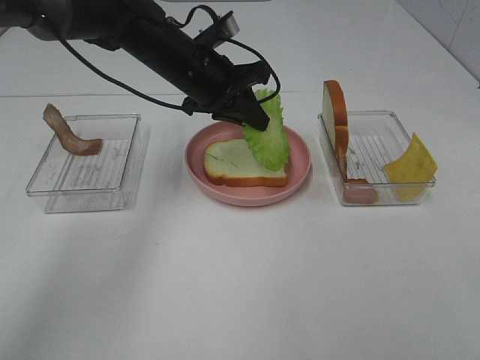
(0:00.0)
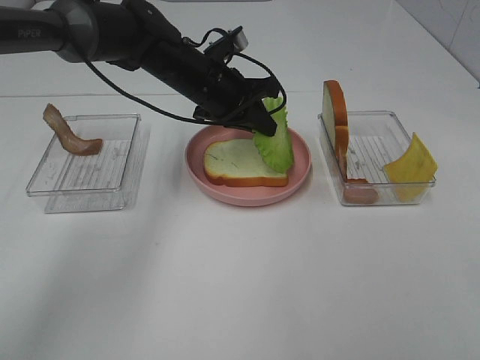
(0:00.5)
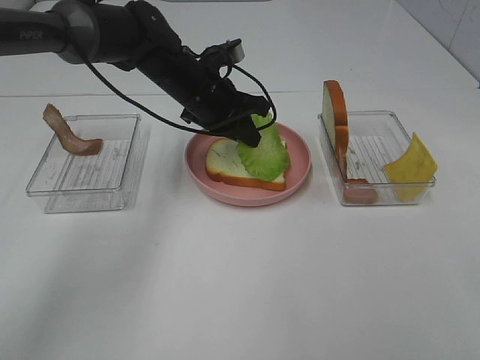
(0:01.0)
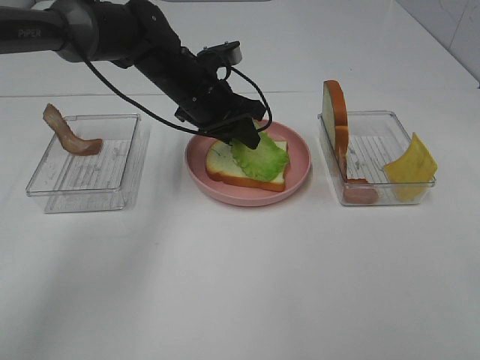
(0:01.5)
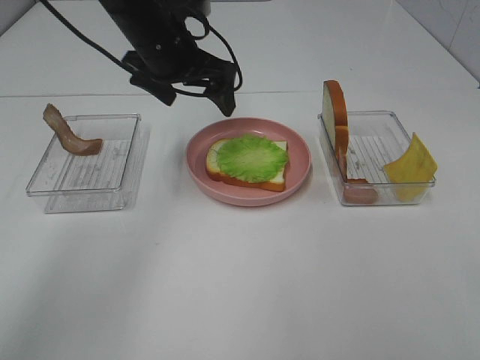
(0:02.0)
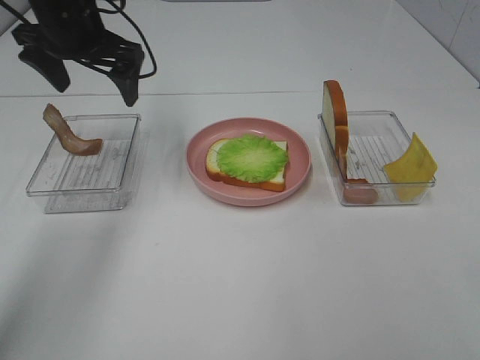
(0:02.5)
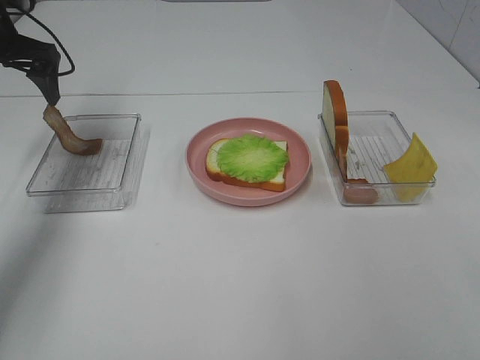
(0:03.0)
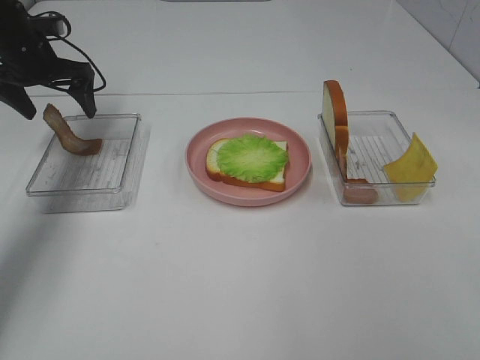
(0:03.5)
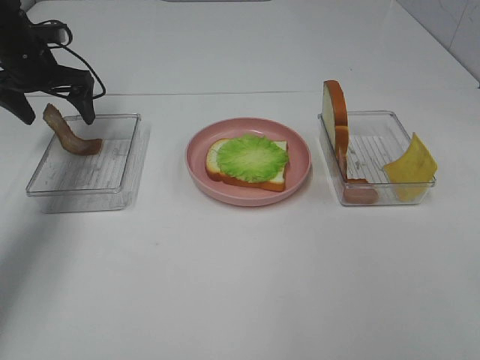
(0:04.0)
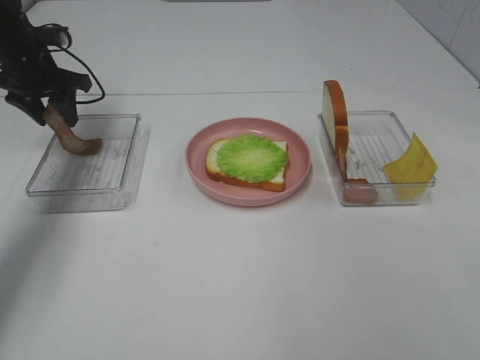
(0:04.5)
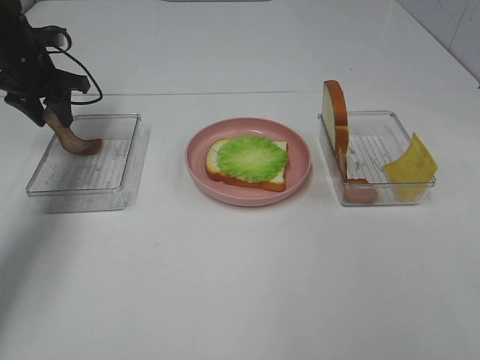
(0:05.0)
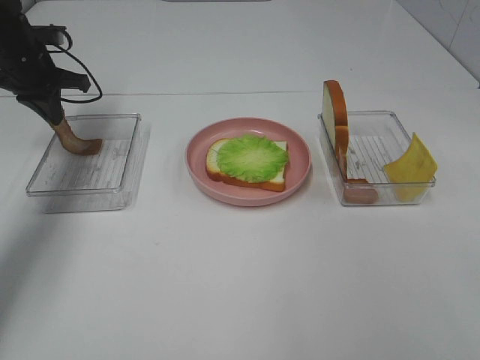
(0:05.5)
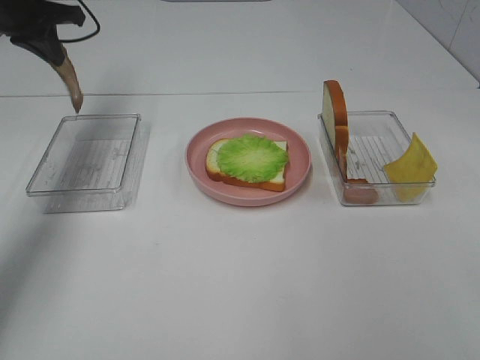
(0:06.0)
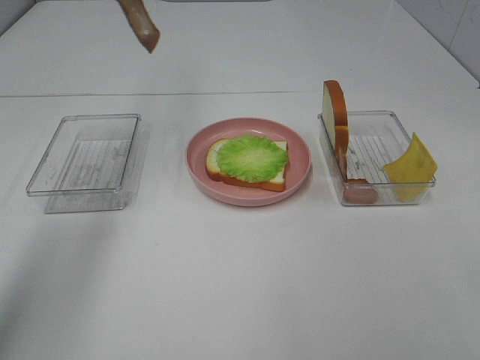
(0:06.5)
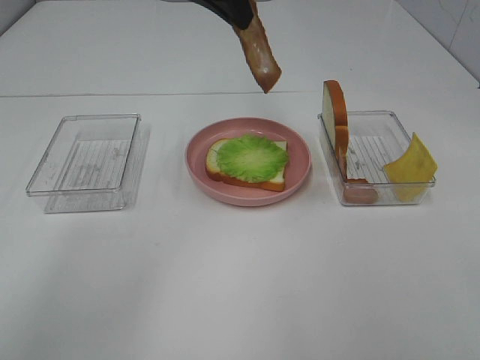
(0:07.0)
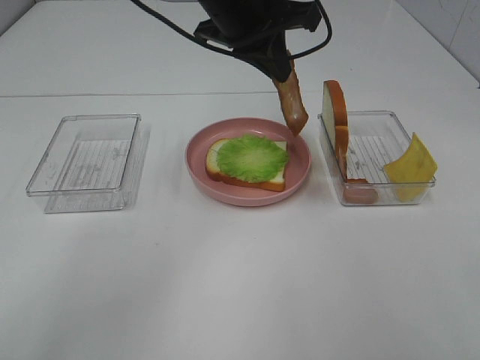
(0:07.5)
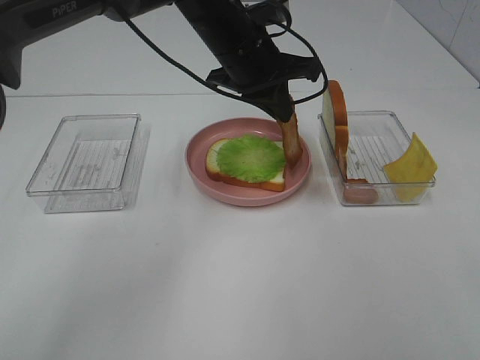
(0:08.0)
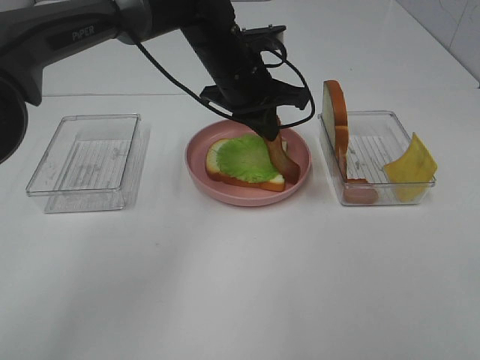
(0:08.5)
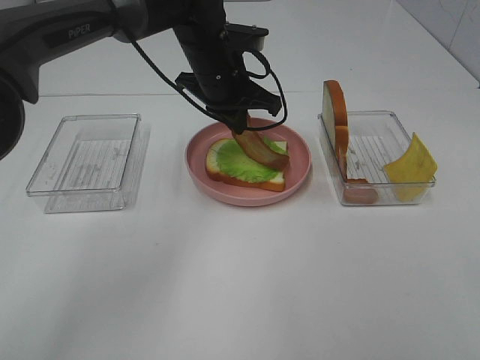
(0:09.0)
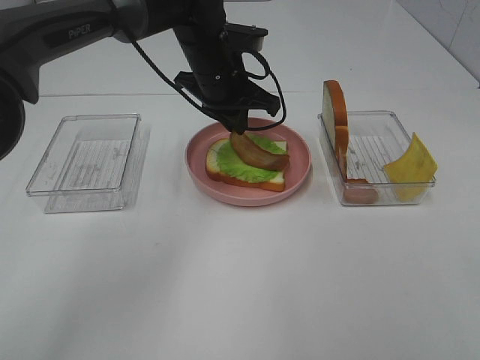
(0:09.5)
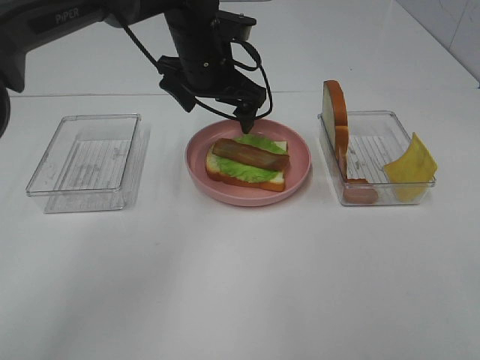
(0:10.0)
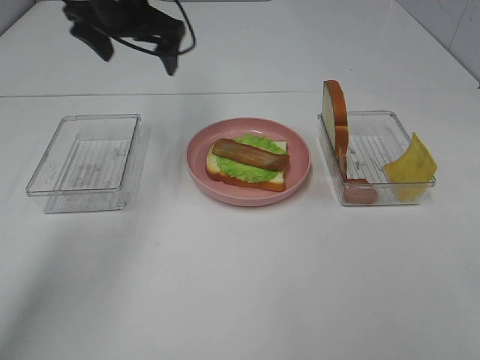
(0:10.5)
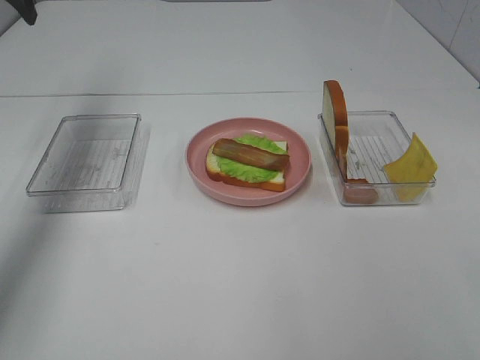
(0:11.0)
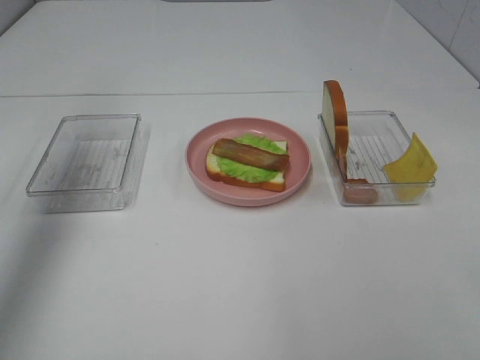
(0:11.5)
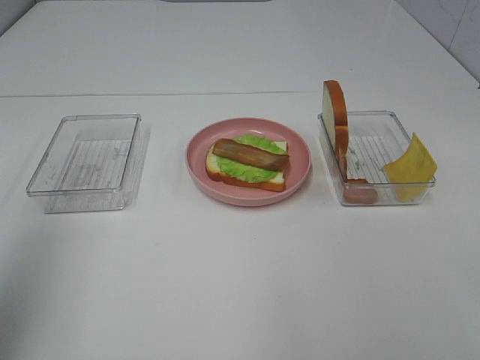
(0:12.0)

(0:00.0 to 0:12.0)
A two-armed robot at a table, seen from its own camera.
Task of the whole recording: Make sandwiches.
Step, 0:02.0 - 0:05.5: Left hand:grab the bacon.
Step, 0:06.0 - 0:09.5: Left hand:place bacon on lettuce slice.
0:00.0 - 0:02.0: The left gripper ends up roughly 5 cm from where it was, and opens up.
0:02.0 - 0:04.0: The left gripper is displaced to the left by approximately 20 cm.
0:04.0 - 0:06.0: The left gripper is displaced upward by roughly 10 cm, and closes.
0:06.0 - 0:08.0: The left gripper goes some 30 cm to the right.
0:08.0 - 0:10.0: The left gripper opens.
0:10.0 - 0:12.0: The left gripper moves backward, to the left and upward, approximately 50 cm.

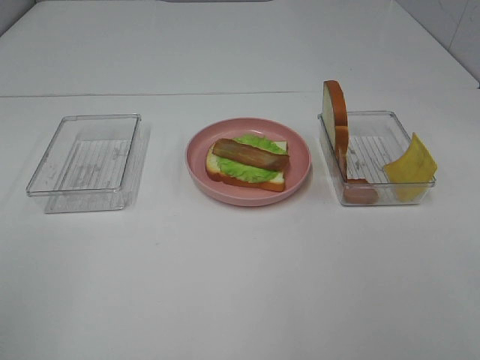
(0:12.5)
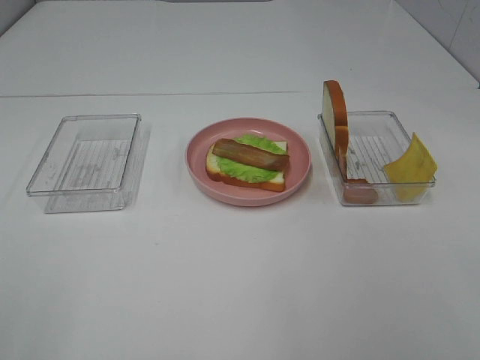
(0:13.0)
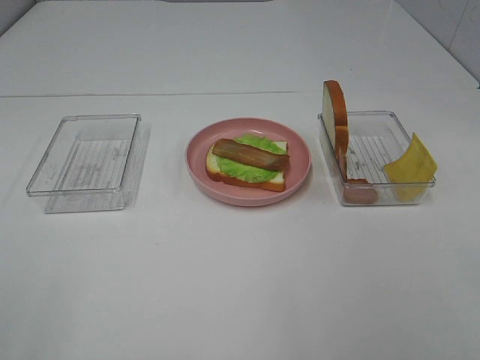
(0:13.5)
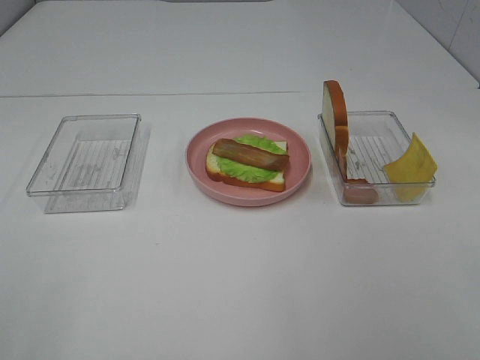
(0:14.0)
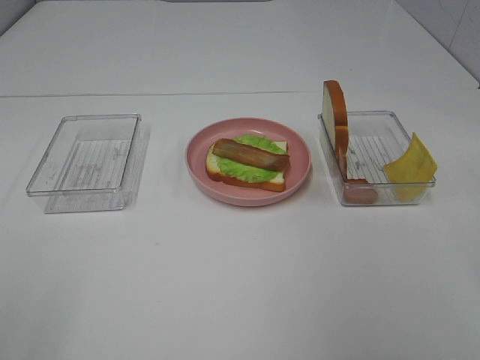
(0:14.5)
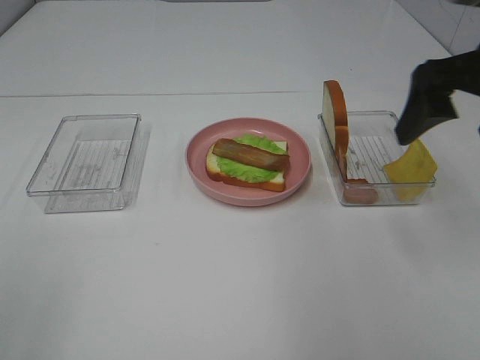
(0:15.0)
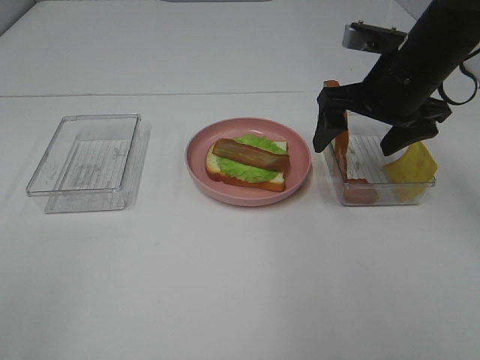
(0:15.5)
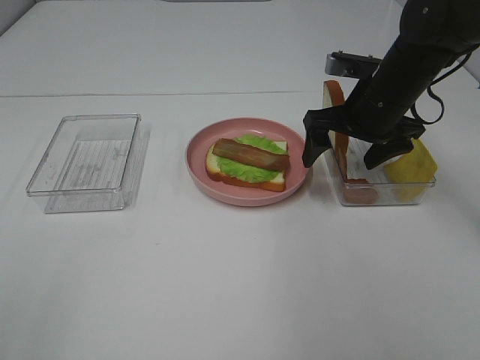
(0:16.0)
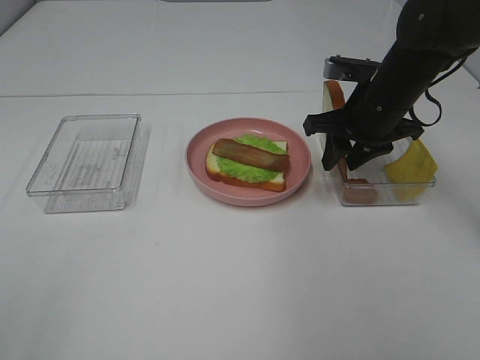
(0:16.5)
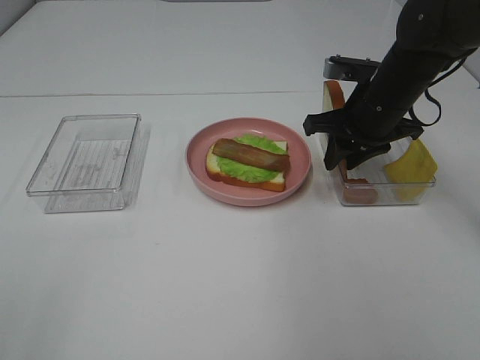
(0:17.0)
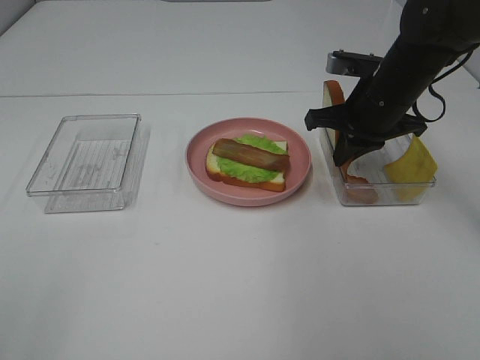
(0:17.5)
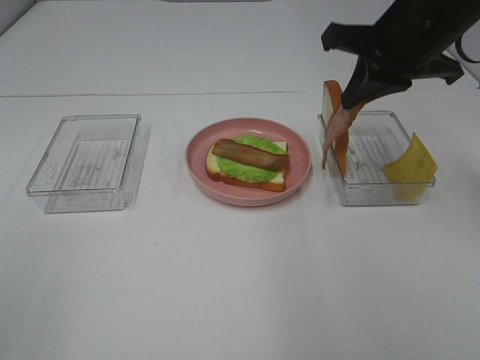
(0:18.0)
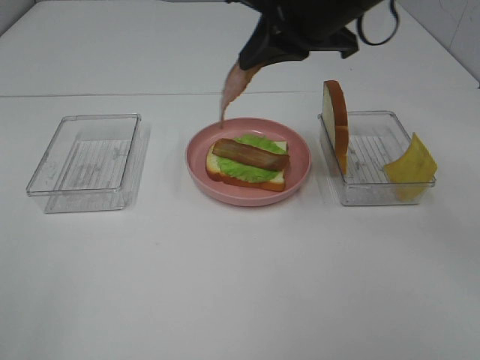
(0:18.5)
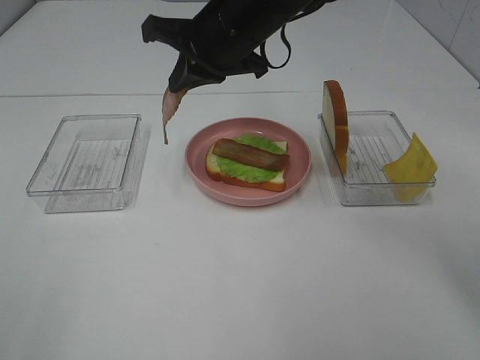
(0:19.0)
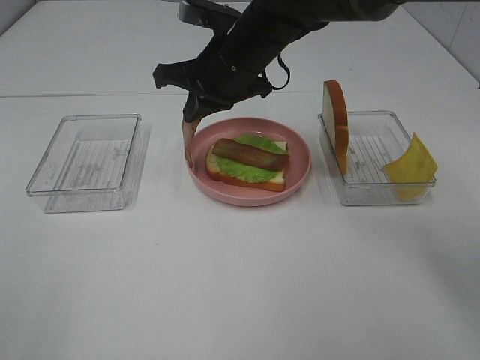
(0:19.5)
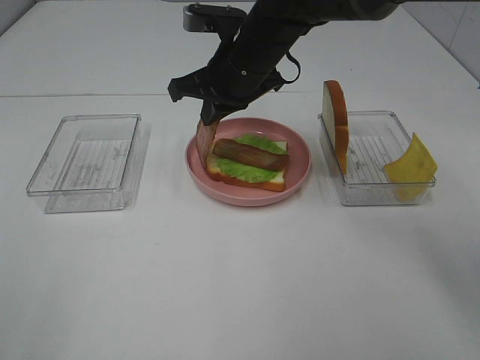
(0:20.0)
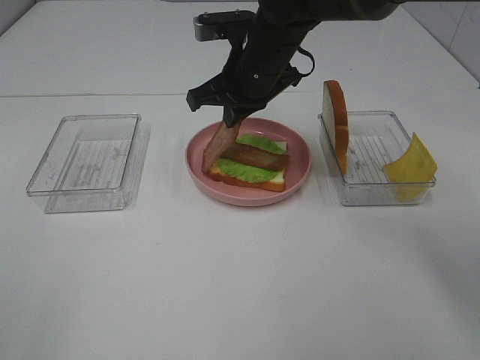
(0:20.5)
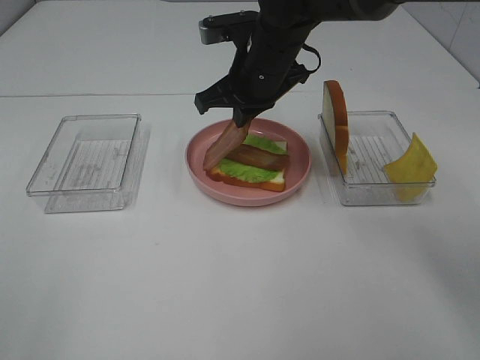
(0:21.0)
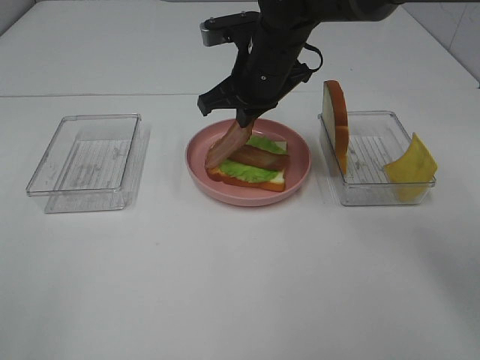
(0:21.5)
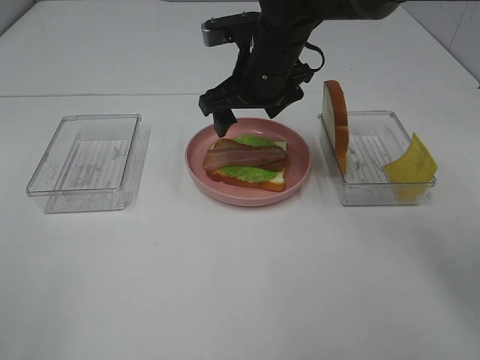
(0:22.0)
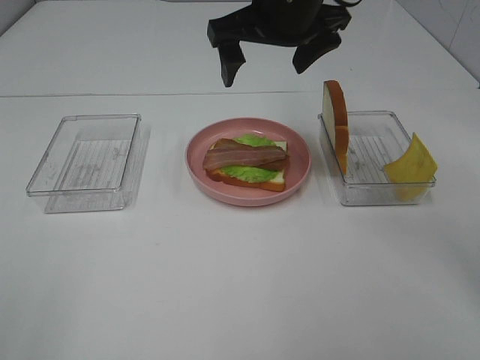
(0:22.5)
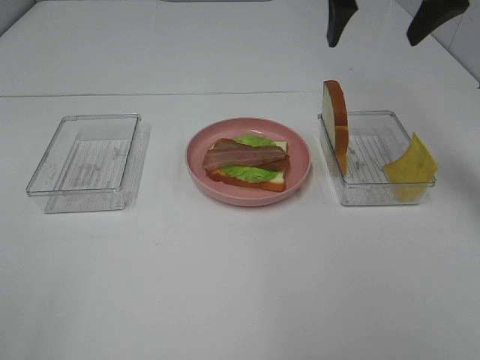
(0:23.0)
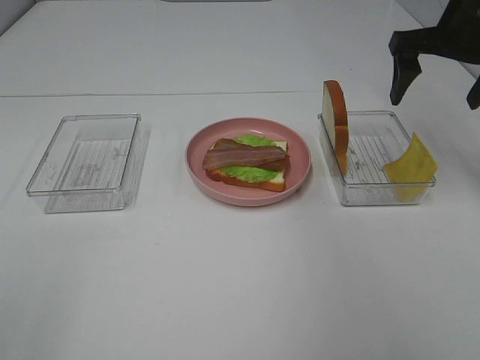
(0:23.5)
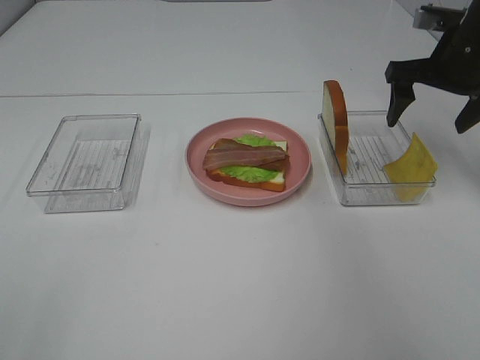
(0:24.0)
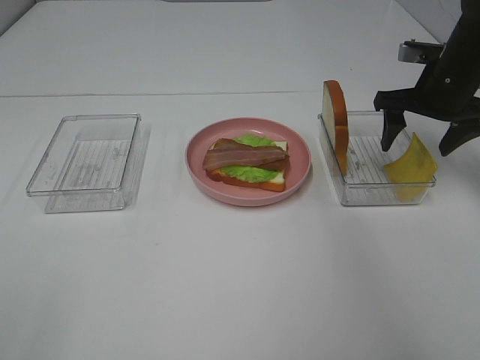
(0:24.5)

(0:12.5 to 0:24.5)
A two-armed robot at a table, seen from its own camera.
Task of the whole recording: Make sandwiches.
Step, 0:12.5 - 0:17.5: Right hand:grab the bacon.
Step, 0:18.0 - 0:22.0: Right hand:place bacon on bacon.
0:14.5 - 0:16.5: The right gripper travels forward, downward and to the left by some 35 cm, and closes up.
0:16.5 - 0:18.5: The right gripper moves upward and to the left, about 15 cm, and closes up.
0:18.5 - 0:20.5: The right gripper goes roughly 15 cm downward, forward and to the left.
0:20.5 - 0:22.5: The right gripper heads upward, covering approximately 10 cm, and opens its fingers.
0:22.5 - 0:24.5: The right gripper is displaced to the right and downward by about 25 cm.

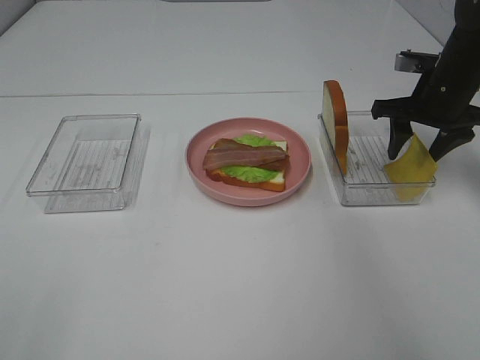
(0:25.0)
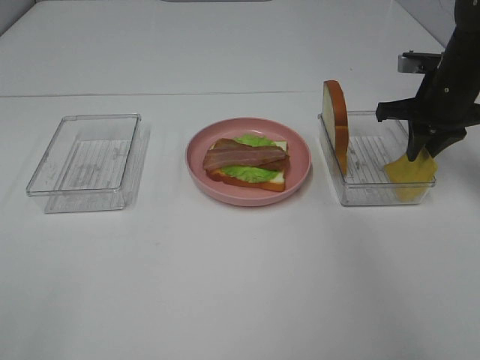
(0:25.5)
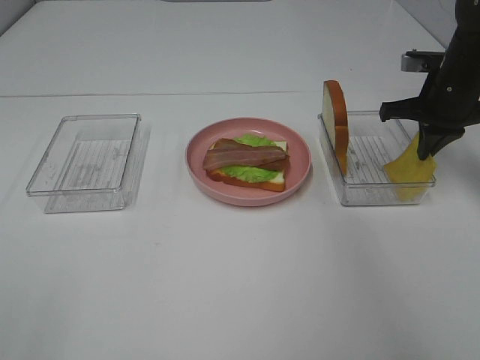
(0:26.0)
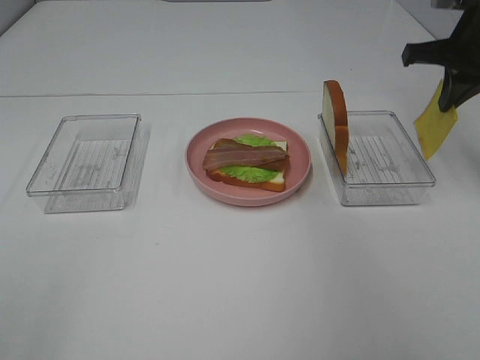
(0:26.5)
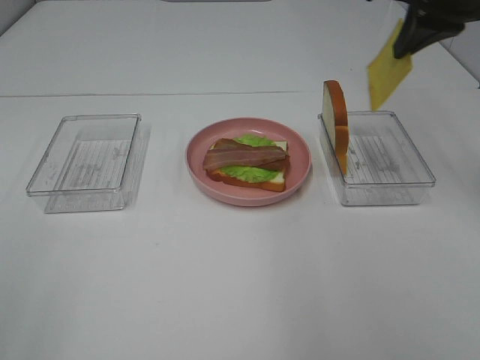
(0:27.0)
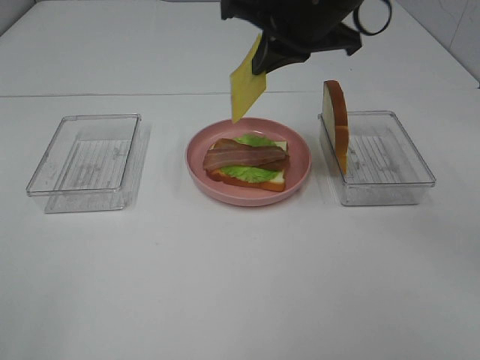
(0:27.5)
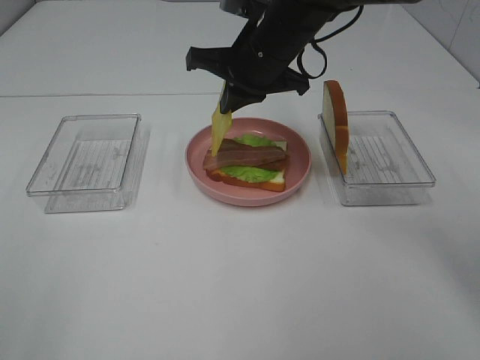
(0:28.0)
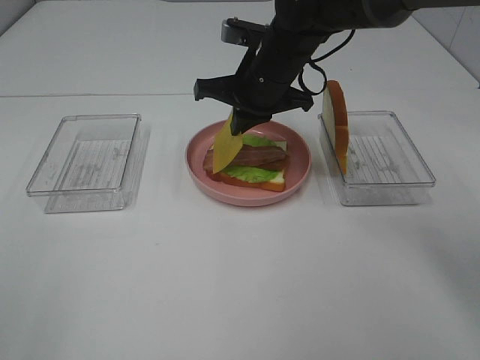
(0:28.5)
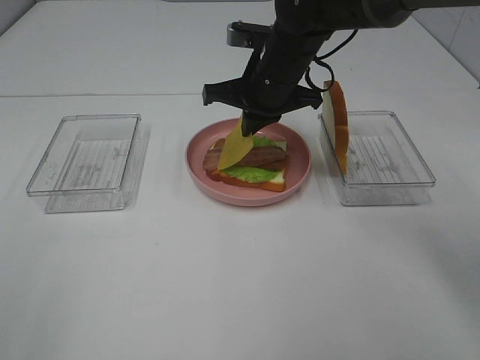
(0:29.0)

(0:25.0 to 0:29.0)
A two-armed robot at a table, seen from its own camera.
Task of the whole recording: Make sandwiches.
0:25.0 - 0:27.0: The right gripper heads upward and to the left, covering about 20 cm, and closes up.
0:27.0 - 0:29.0: The right gripper heads to the left and downward, covering about 20 cm.
